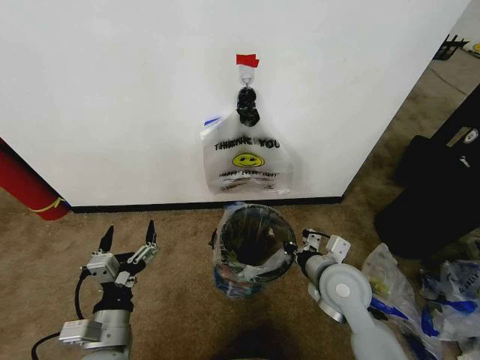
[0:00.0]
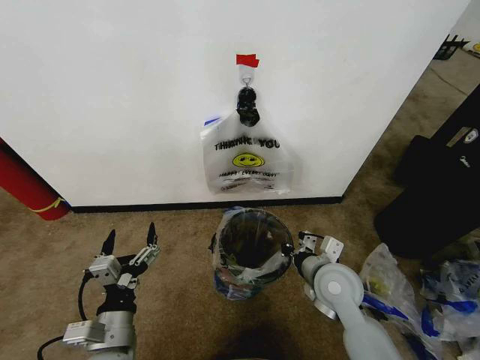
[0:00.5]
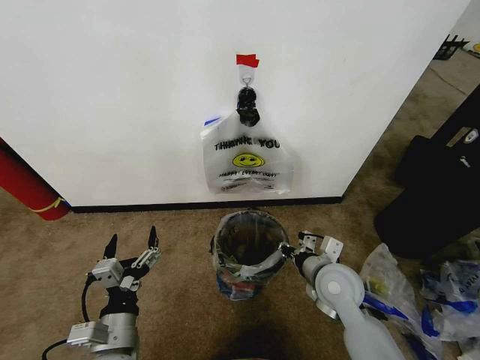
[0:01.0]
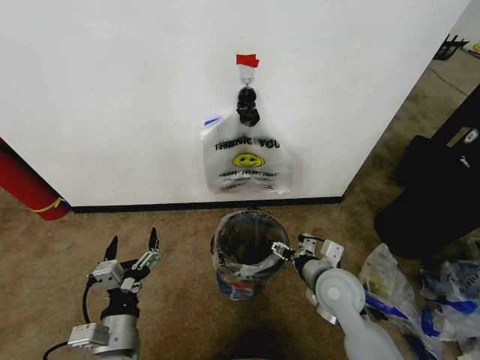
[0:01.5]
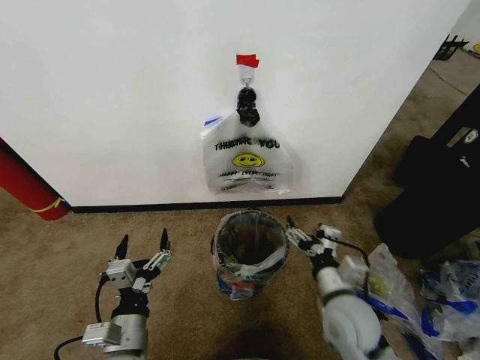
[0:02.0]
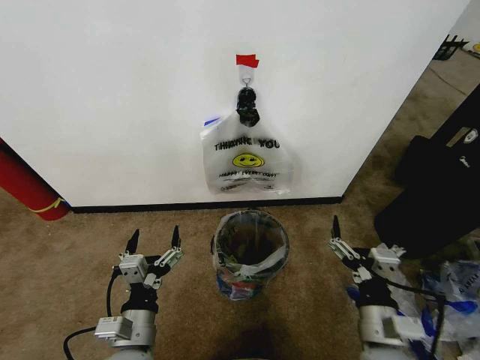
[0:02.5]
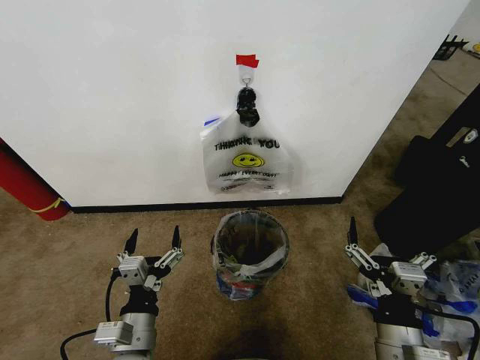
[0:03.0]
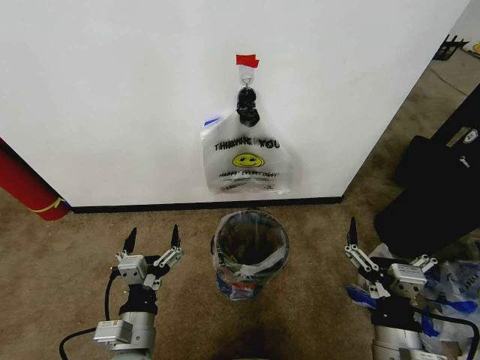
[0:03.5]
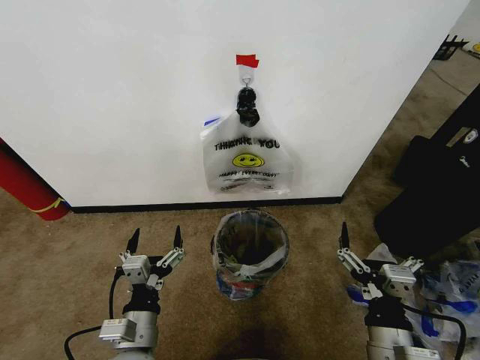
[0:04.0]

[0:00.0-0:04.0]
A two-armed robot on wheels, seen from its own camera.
Task of the whole recording: Pick up the garbage bag from the wall and place it over the trash bin.
0:00.0 to 0:02.0: The right gripper is displaced backward by roughly 5 cm, and opens up.
0:02.0 to 0:04.0: The right gripper moves backward, about 10 cm.

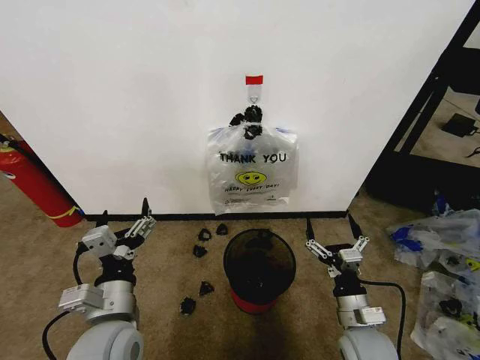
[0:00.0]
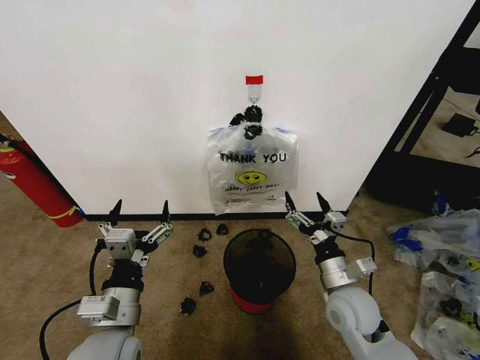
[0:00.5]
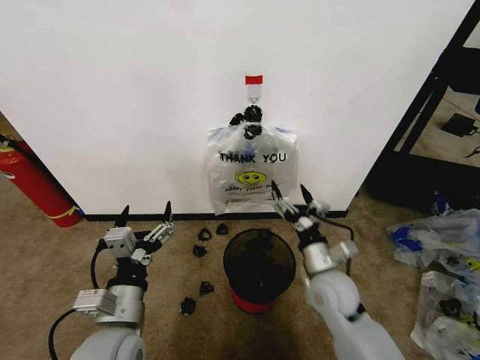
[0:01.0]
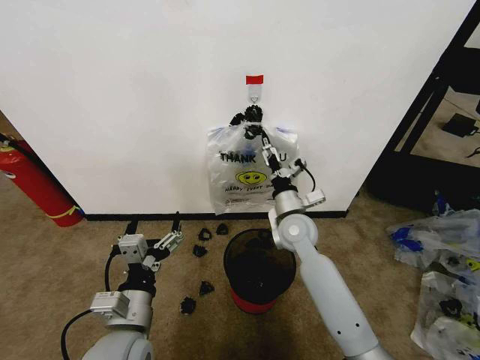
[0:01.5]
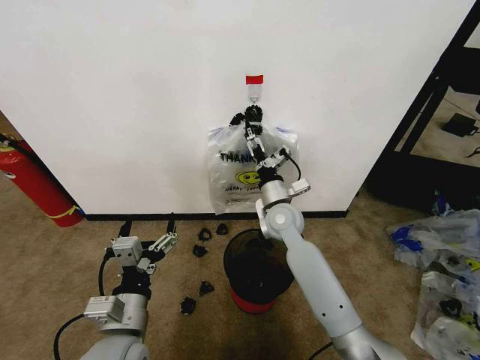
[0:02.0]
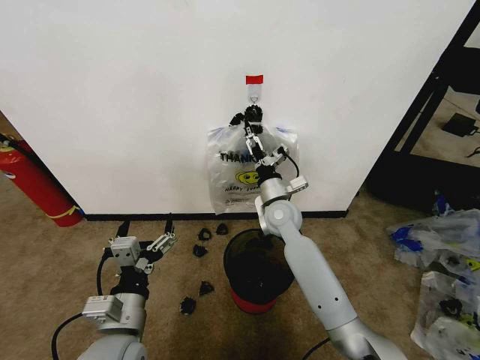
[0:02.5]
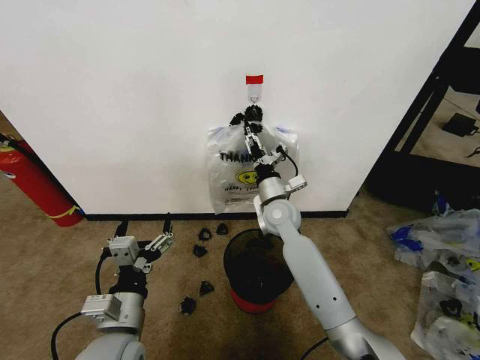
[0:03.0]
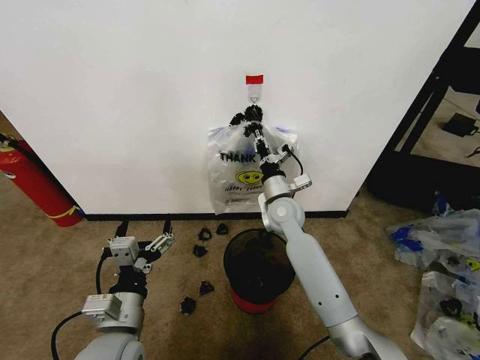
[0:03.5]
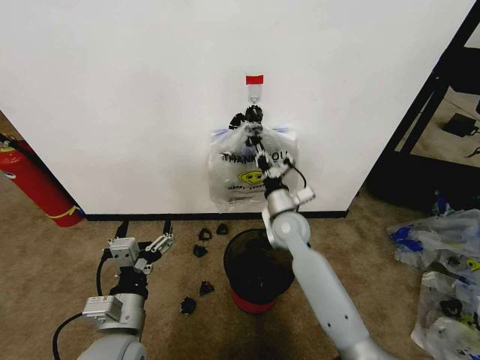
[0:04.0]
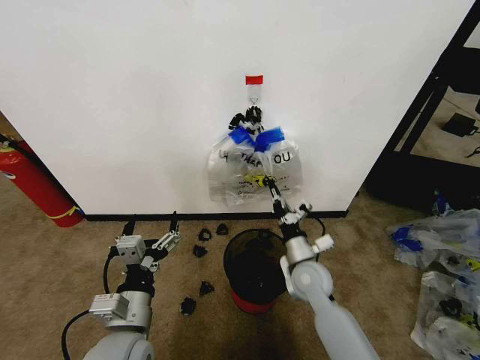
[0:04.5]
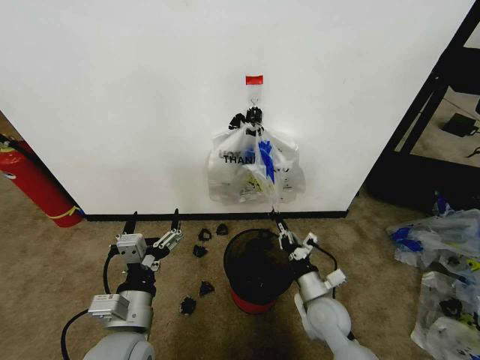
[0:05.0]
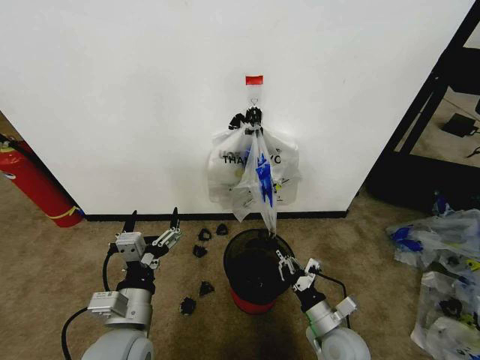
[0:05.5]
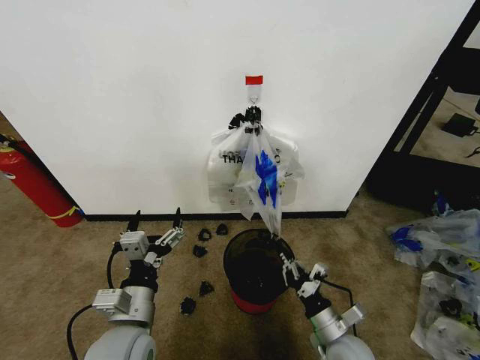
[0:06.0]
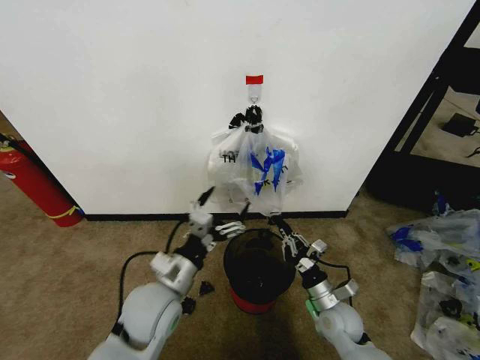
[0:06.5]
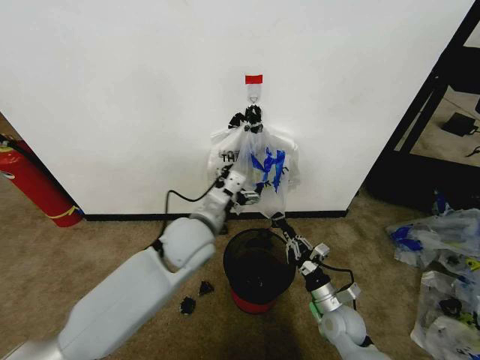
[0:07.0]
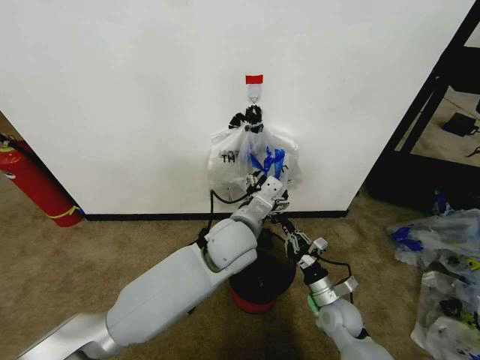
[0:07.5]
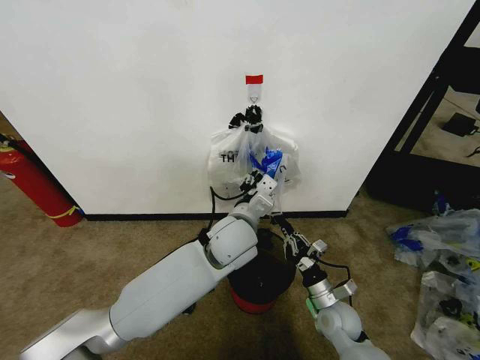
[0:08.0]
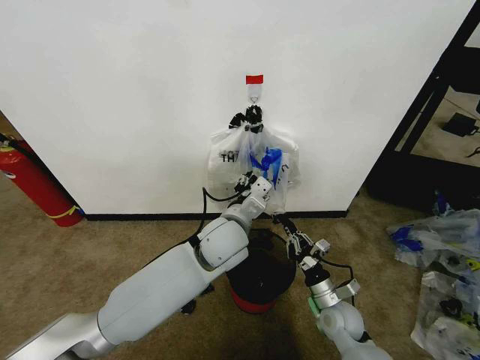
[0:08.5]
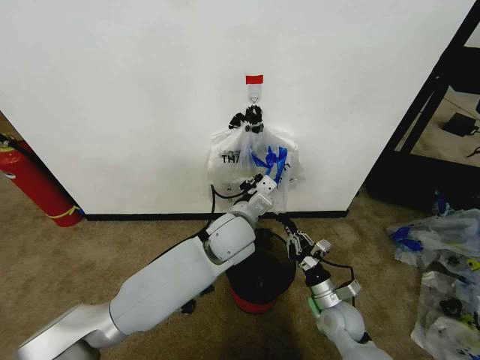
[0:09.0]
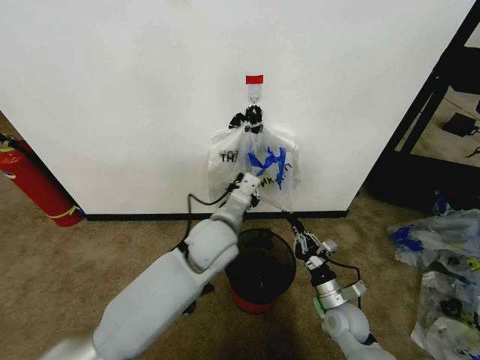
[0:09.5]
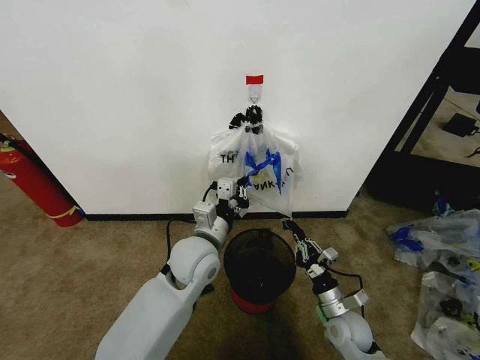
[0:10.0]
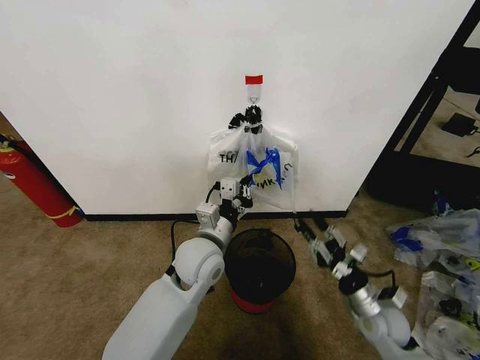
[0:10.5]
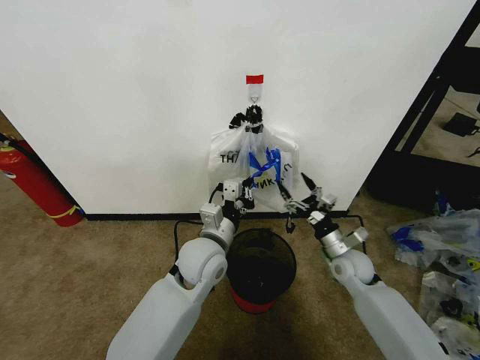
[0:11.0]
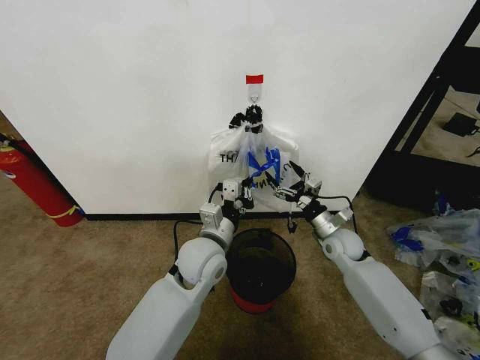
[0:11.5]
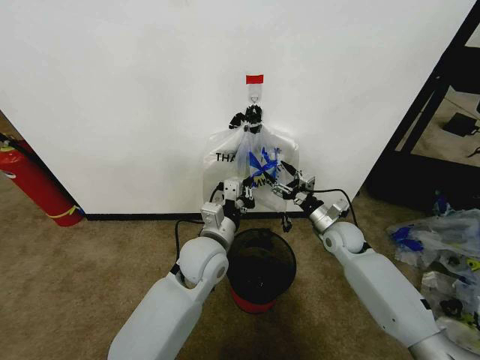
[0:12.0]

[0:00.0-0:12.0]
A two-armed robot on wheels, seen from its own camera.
Task of the whole recording: Pick up the garbage bag from the wall and place it over the trash bin.
0:02.0 to 0:04.0: The right gripper closes up.
0:04.0 to 0:06.0: The right gripper travels backward, downward and to the right by some 30 cm.
0:06.0 to 0:08.0: The right gripper travels forward by about 10 cm, while the left gripper is displaced forward and to the right by approximately 25 cm, and closes its fingers.
0:08.0 to 0:10.0: The left gripper shifts about 10 cm to the left, and closes.
0:10.0 to 0:12.0: The right gripper goes approximately 20 cm forward and upward, and opens.

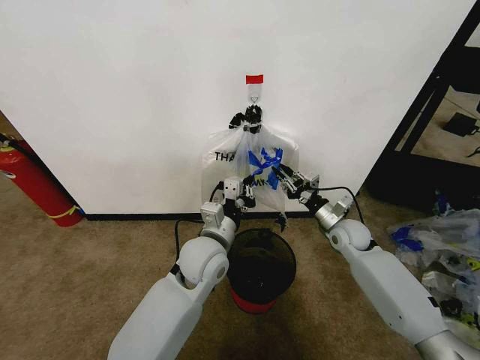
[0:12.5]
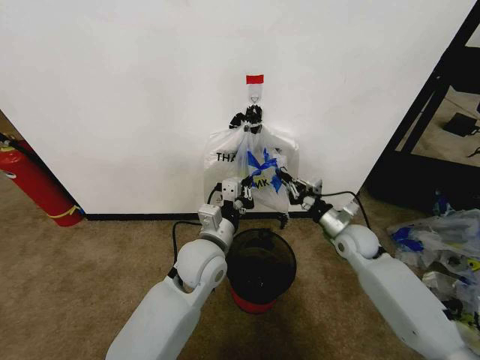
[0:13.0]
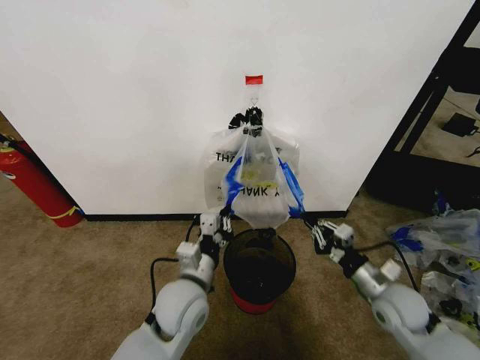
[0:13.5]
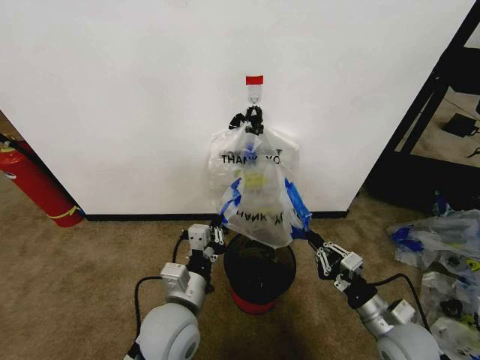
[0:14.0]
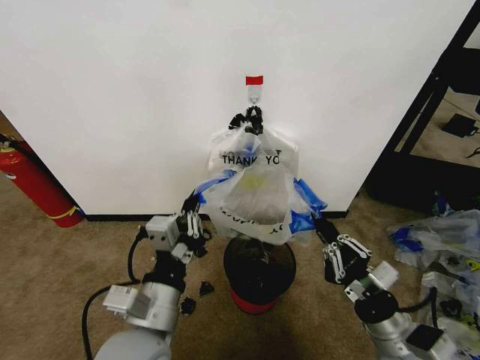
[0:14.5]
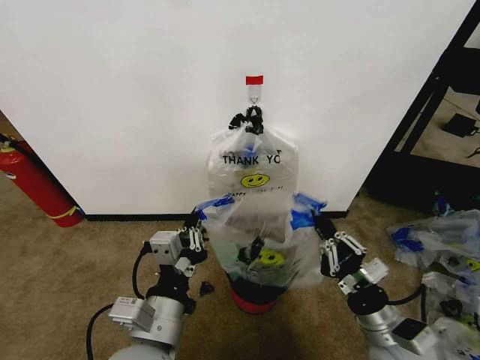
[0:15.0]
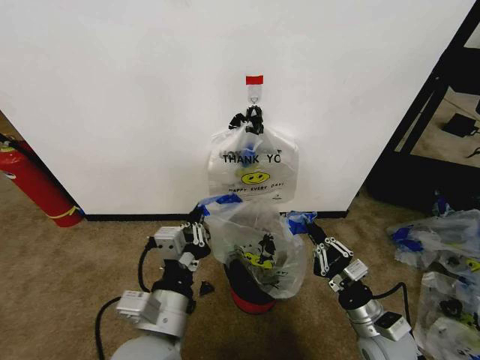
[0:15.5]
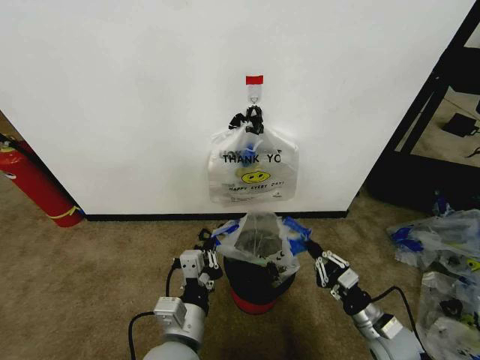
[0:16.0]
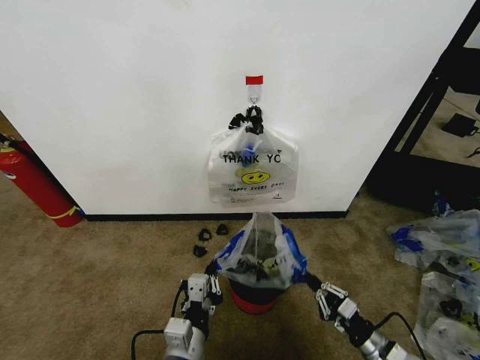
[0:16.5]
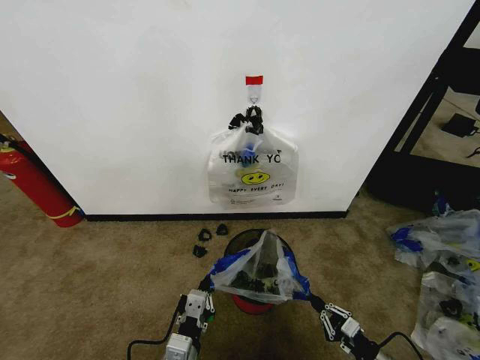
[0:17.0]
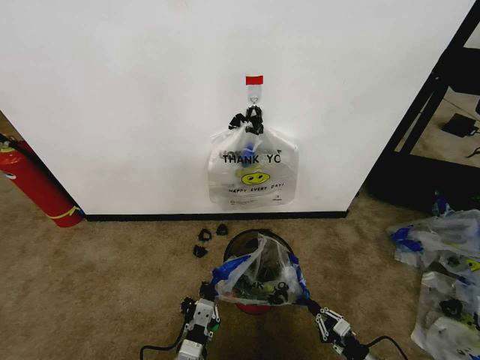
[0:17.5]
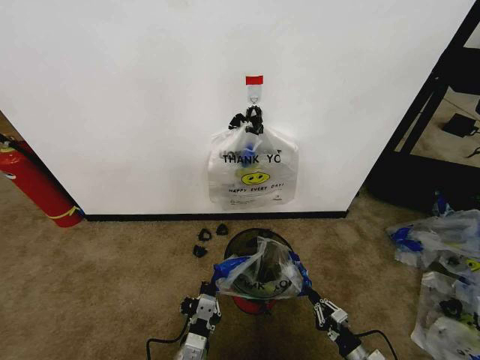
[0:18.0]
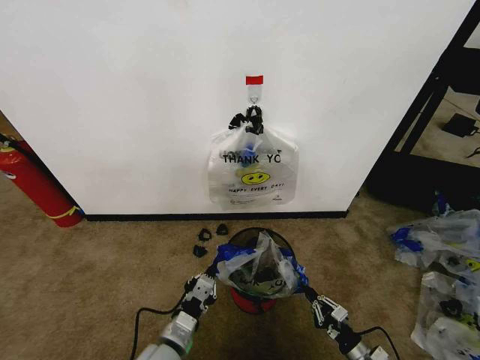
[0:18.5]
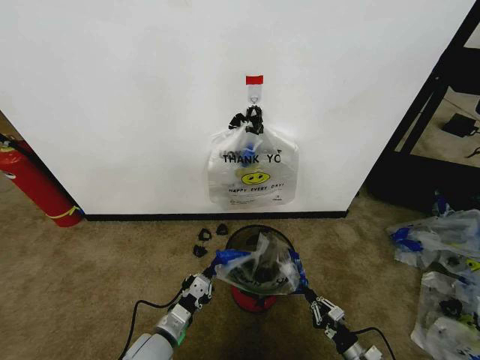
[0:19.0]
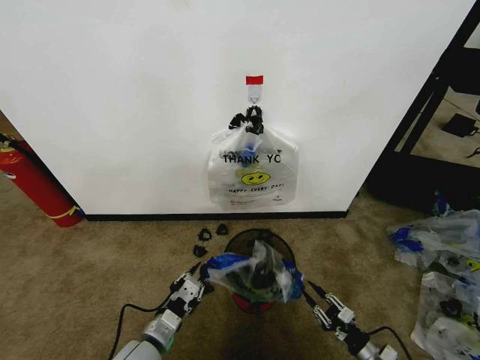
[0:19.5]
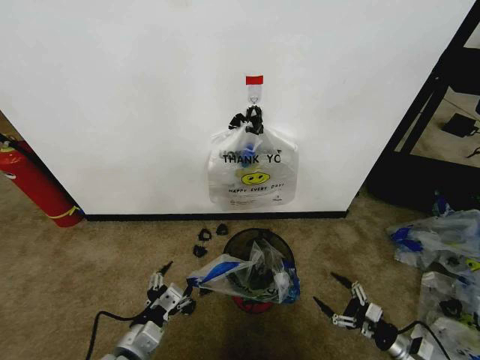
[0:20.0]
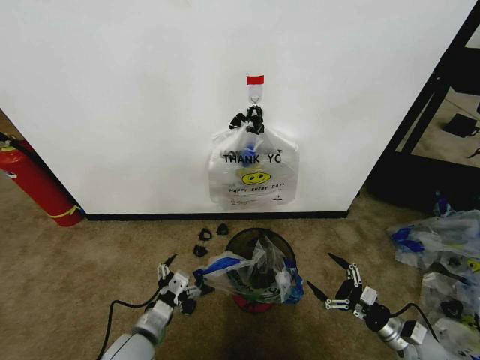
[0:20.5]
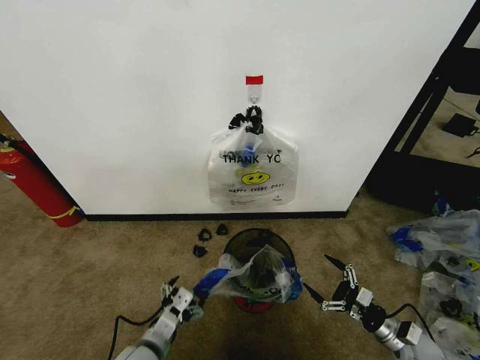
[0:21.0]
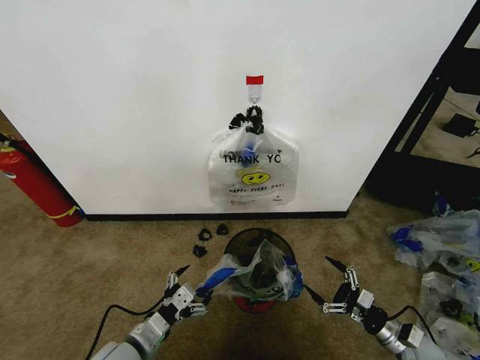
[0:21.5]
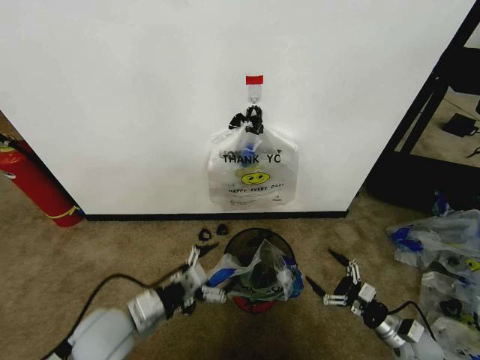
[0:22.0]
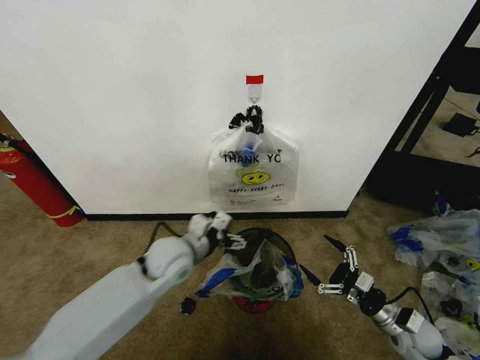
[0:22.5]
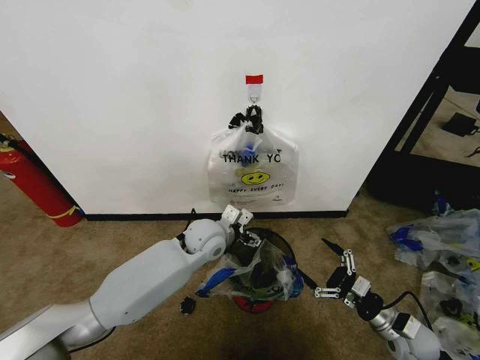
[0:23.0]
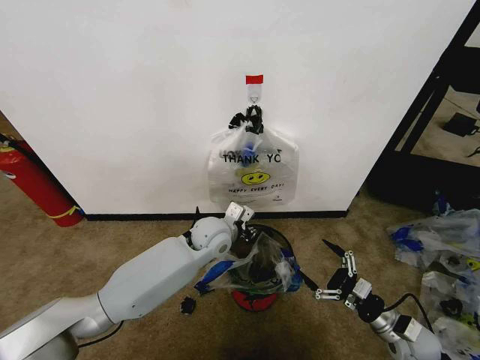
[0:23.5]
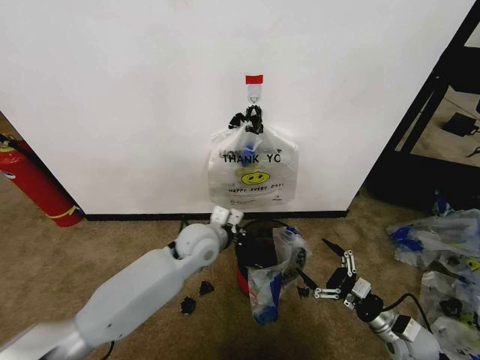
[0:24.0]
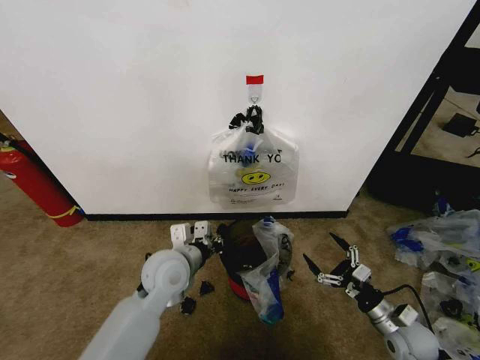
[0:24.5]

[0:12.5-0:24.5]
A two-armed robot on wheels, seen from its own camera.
Task of the whole recording: Pick up the garbage bag from the wall and place it over the trash bin.
0:12.5 to 0:14.5: The left gripper moves backward, some 20 cm, while the right gripper heads backward, covering some 30 cm.
0:14.5 to 0:16.5: The left gripper travels downward by approximately 10 cm, while the right gripper heads downward and to the right, covering some 20 cm.
0:16.5 to 0:18.5: The two grippers go approximately 10 cm downward.
0:18.5 to 0:20.5: The right gripper heads upward, to the right and forward, covering approximately 10 cm, and opens up, while the left gripper moves to the left, about 5 cm, and opens.
0:20.5 to 0:22.5: The right gripper is displaced upward by about 5 cm; the left gripper shifts approximately 20 cm forward, upward and to the right.
0:22.5 to 0:24.5: The left gripper closes up.
